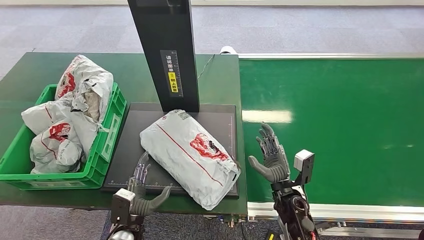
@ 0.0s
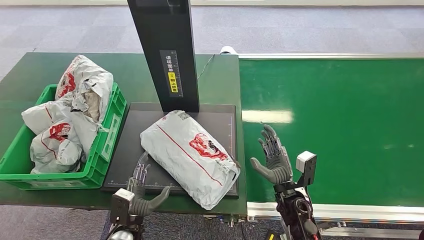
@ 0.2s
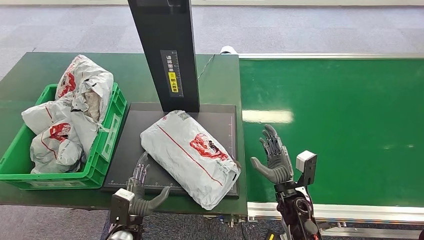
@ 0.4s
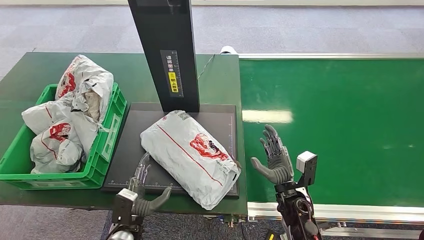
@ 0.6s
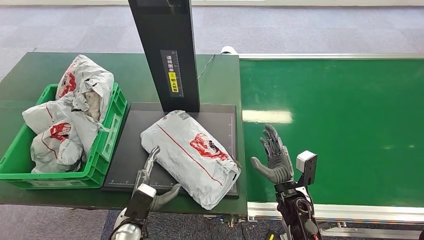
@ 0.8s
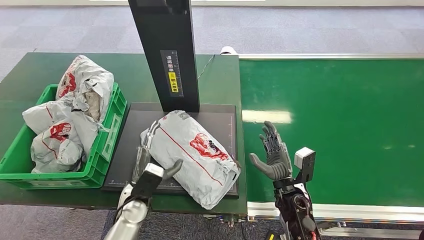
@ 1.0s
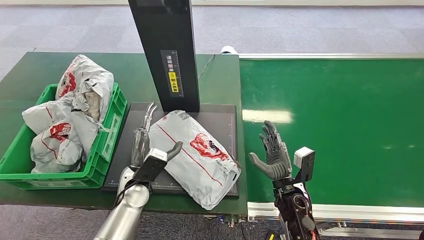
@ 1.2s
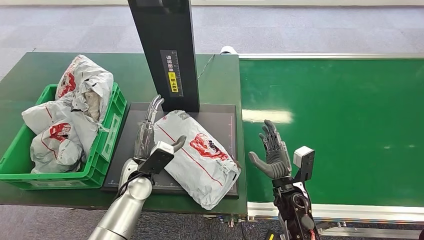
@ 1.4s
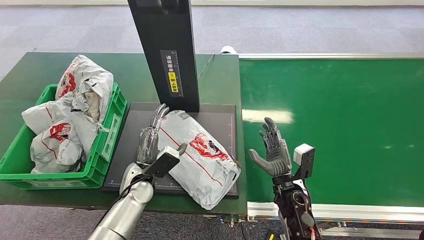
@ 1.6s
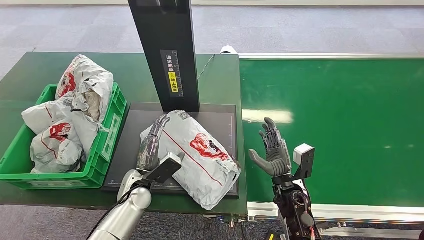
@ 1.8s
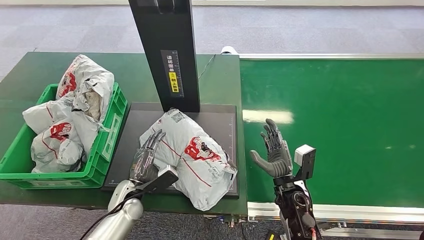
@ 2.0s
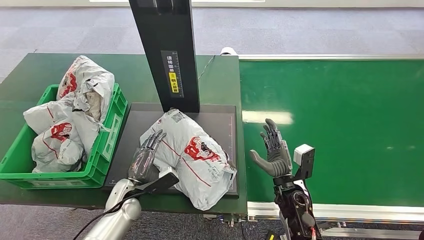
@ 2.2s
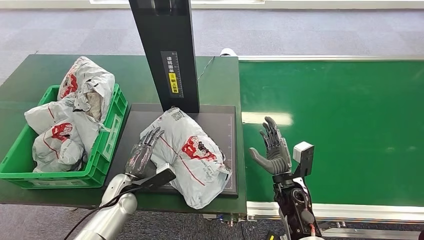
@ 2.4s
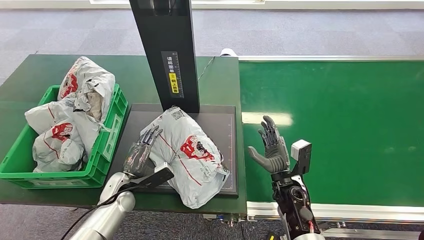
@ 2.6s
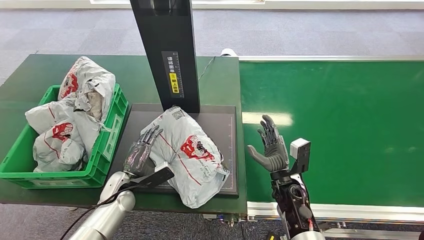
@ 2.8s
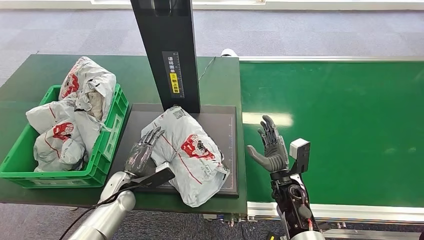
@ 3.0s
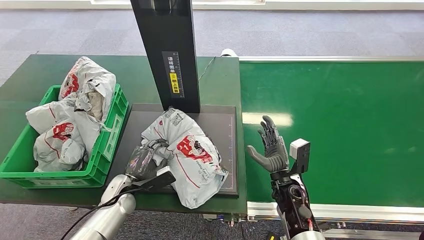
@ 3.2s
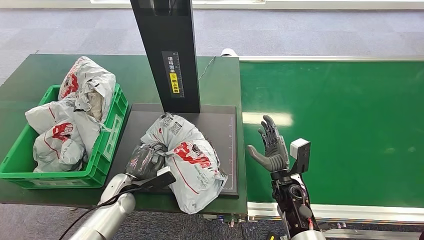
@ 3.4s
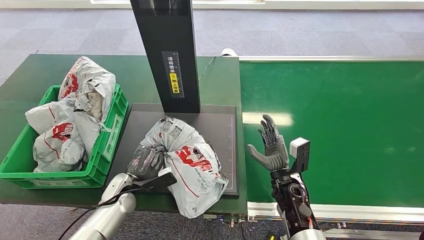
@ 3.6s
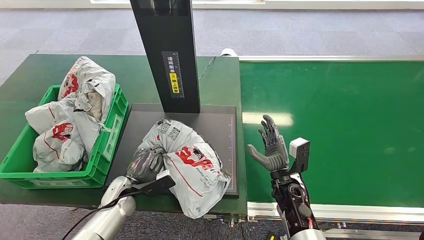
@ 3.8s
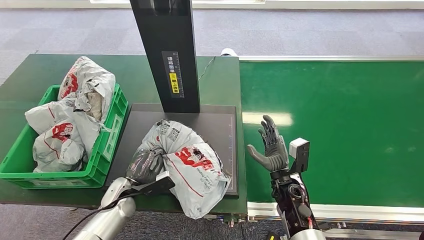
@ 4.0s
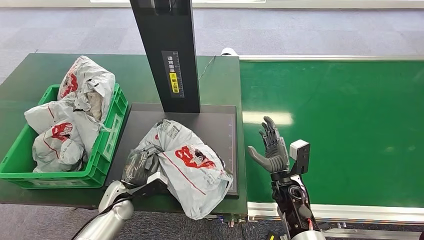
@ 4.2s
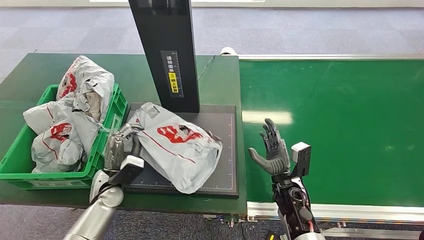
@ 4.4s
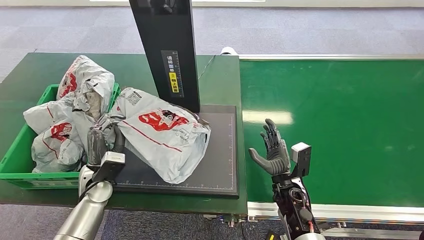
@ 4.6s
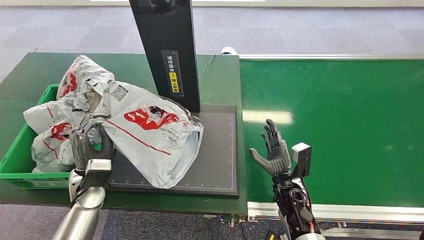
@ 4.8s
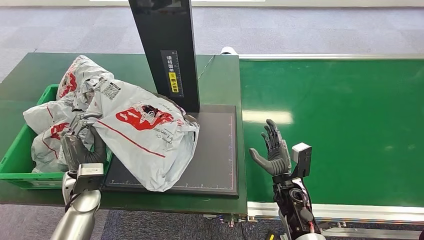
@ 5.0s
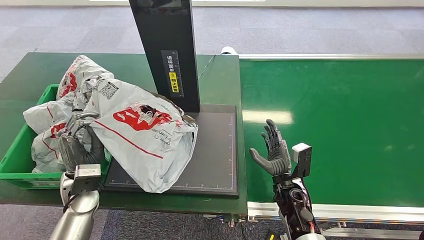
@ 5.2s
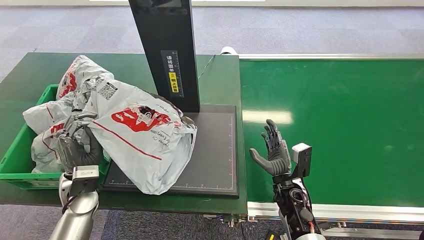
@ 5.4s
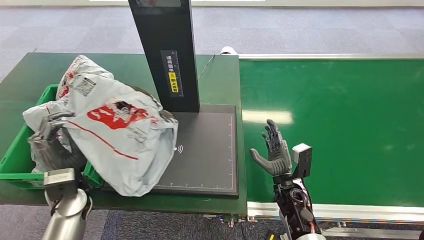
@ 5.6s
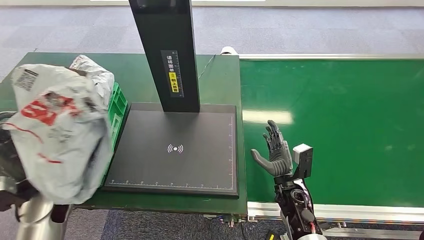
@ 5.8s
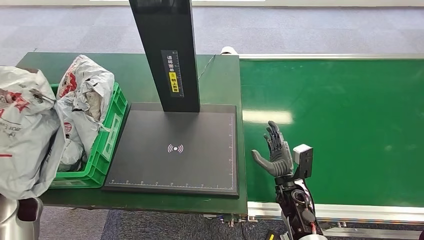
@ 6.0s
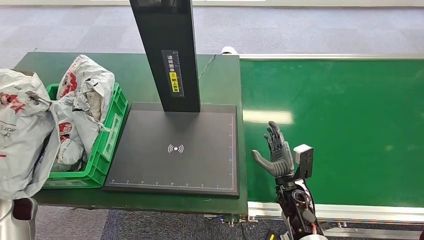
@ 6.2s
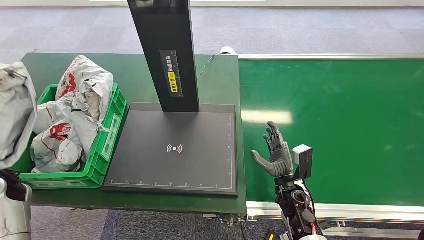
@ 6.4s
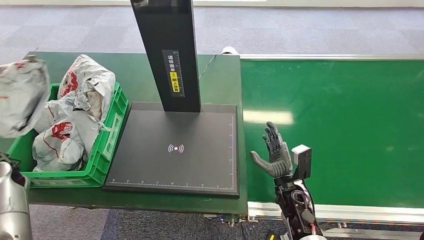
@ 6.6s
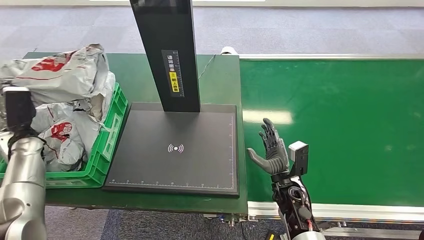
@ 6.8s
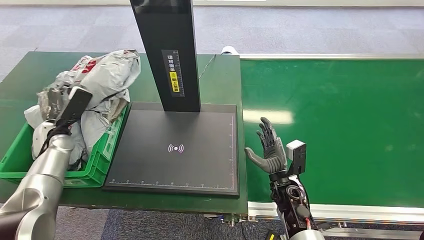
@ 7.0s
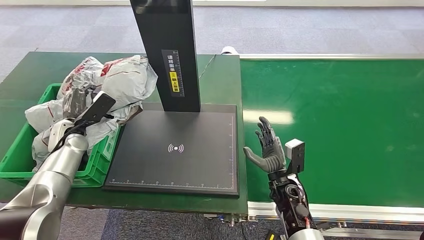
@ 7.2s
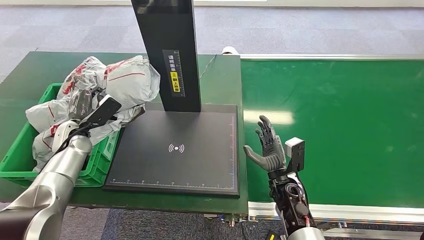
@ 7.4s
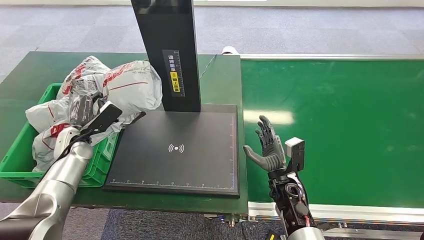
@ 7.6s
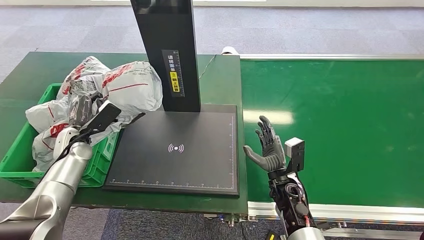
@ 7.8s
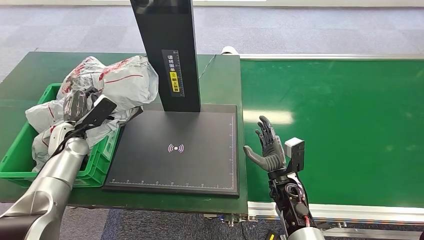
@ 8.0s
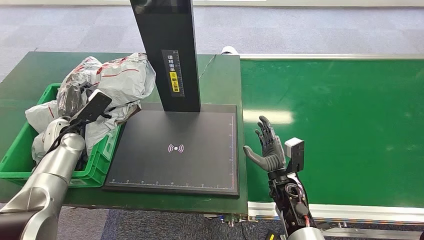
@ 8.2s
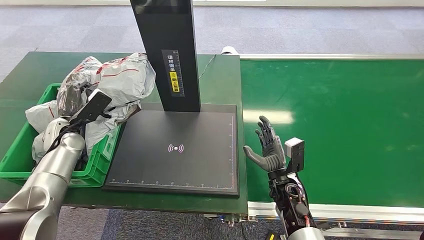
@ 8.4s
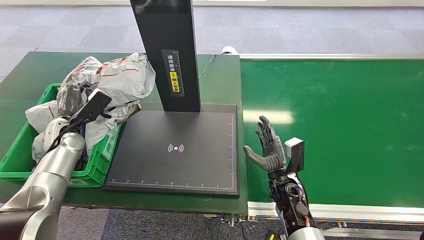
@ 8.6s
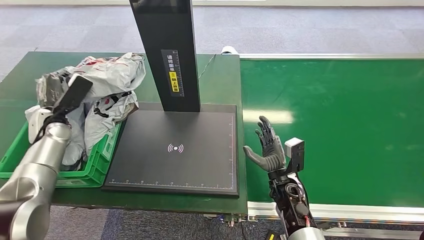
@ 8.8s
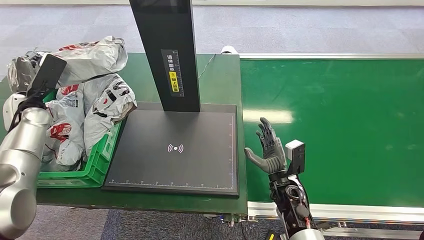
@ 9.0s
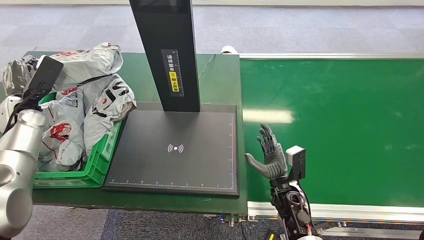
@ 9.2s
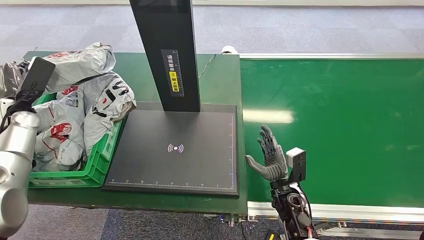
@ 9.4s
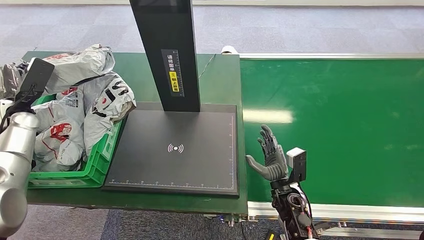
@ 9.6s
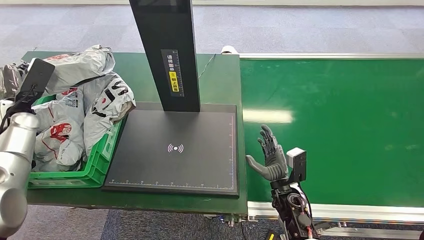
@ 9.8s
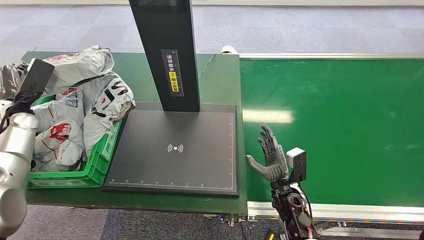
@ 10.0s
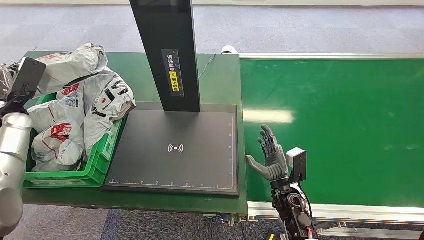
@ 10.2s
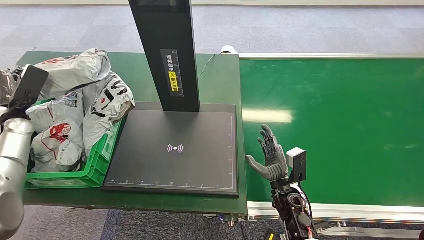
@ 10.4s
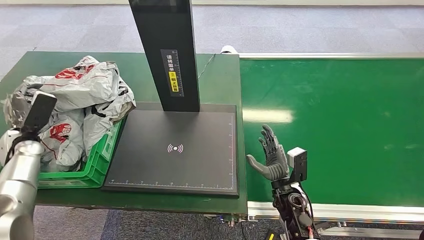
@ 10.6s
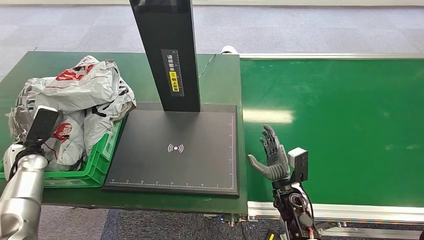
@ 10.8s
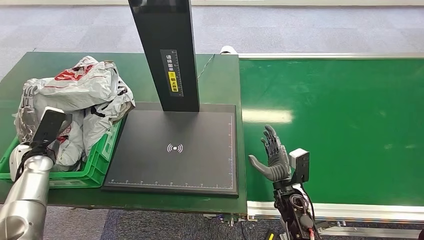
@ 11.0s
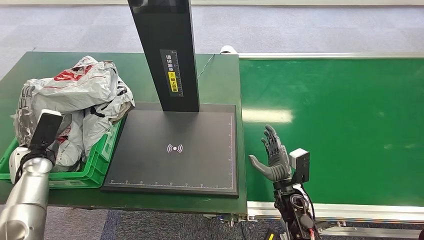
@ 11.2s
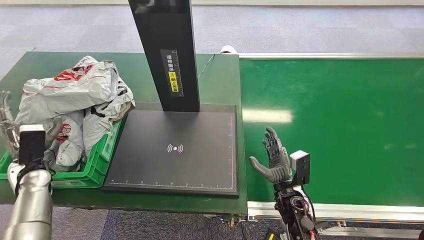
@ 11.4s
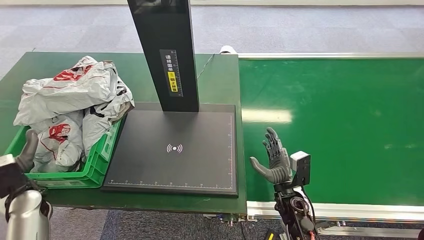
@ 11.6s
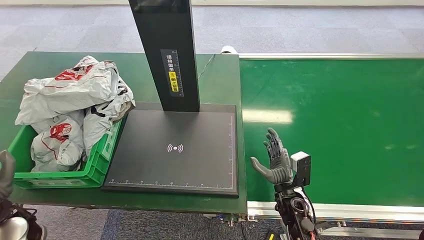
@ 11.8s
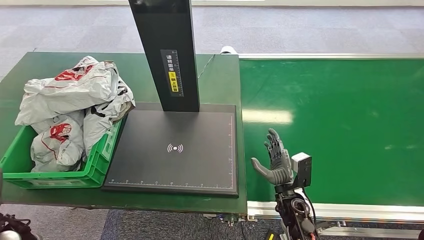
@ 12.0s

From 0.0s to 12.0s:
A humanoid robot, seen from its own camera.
Step, from 3.8s to 4.4s: Pick up the package from the inbound machine.
From 0.0s to 1.6s: The left hand travels forward and upward by some 15 cm.
From 4.4s to 6.0s: The left hand travels to the left and upward by some 20 cm.
From 7.6s to 9.0s: The left hand is displaced upward and to the left by roughly 15 cm.
From 9.0s to 10.4s: The left hand changes place by about 5 cm.
From 10.4s to 12.0s: The left hand travels backward and to the right by roughly 25 cm.

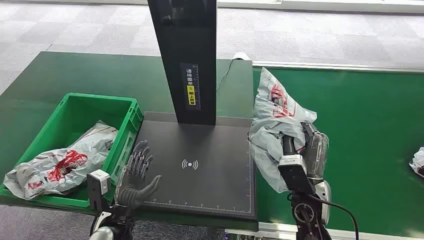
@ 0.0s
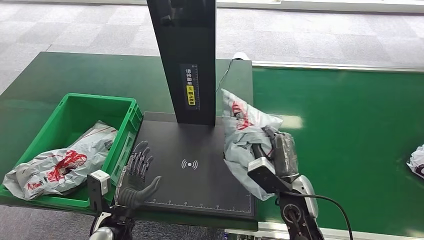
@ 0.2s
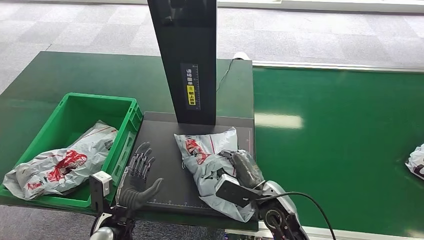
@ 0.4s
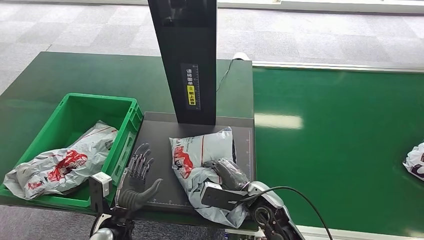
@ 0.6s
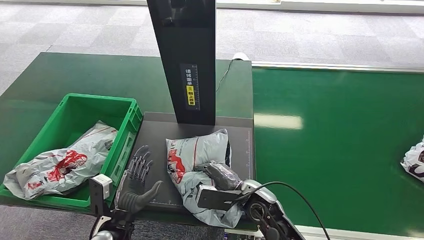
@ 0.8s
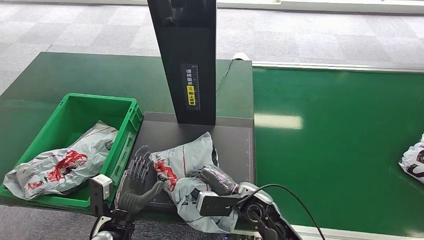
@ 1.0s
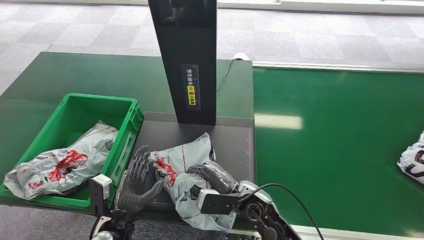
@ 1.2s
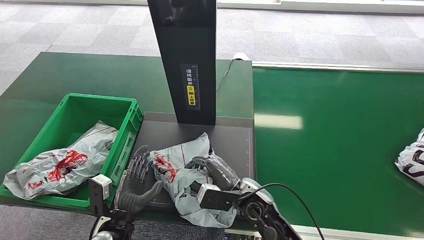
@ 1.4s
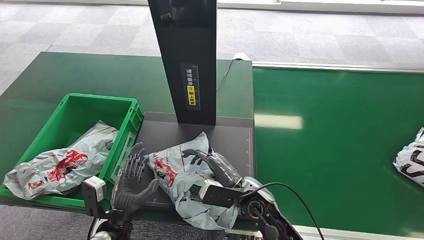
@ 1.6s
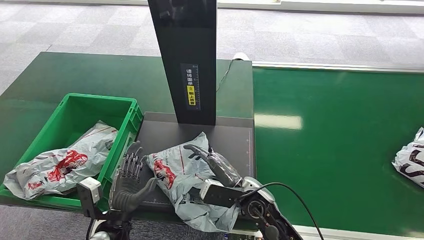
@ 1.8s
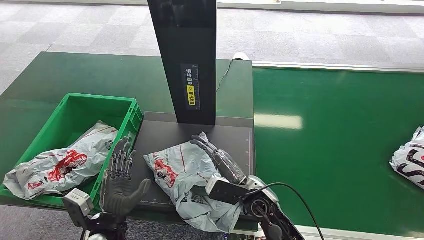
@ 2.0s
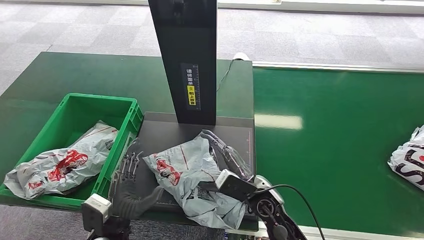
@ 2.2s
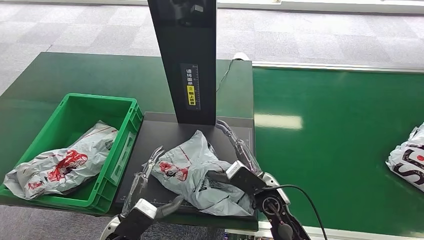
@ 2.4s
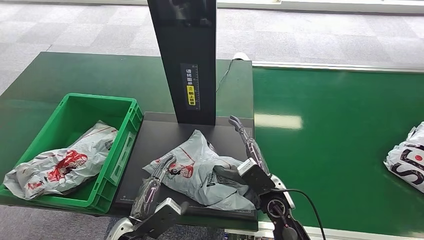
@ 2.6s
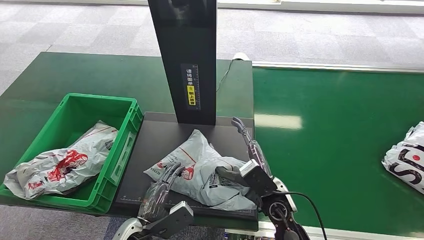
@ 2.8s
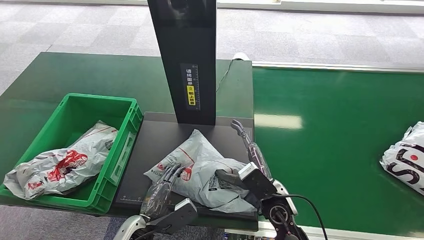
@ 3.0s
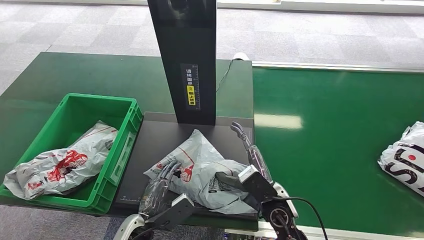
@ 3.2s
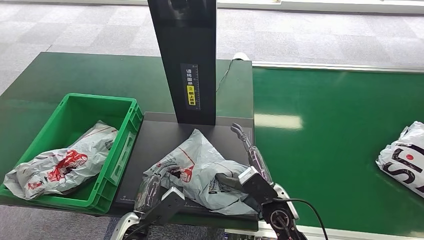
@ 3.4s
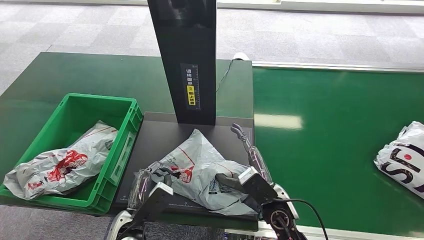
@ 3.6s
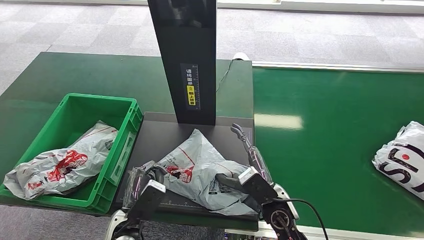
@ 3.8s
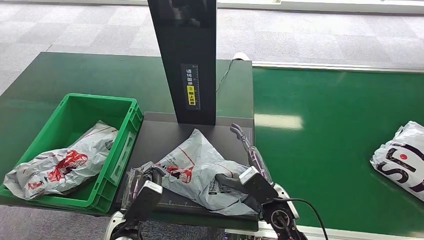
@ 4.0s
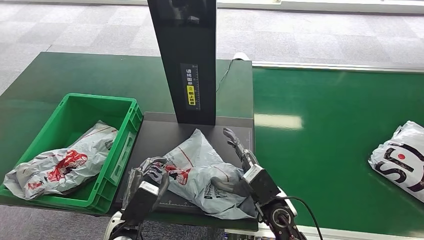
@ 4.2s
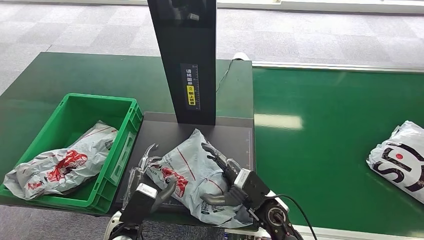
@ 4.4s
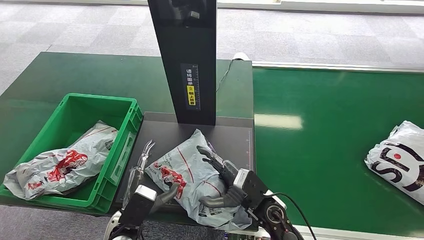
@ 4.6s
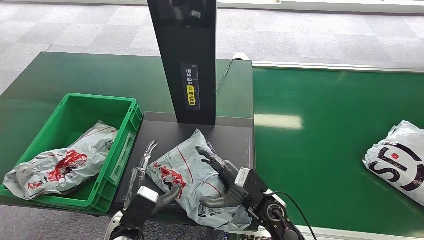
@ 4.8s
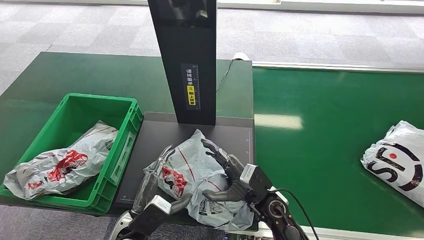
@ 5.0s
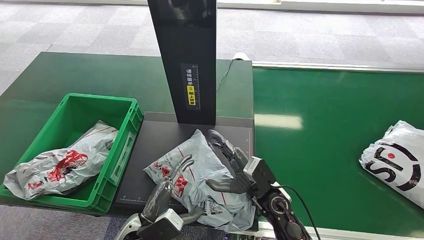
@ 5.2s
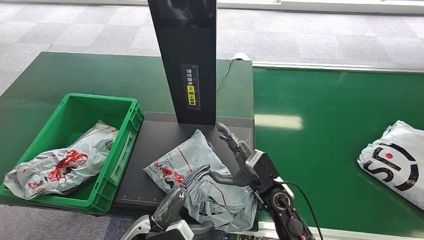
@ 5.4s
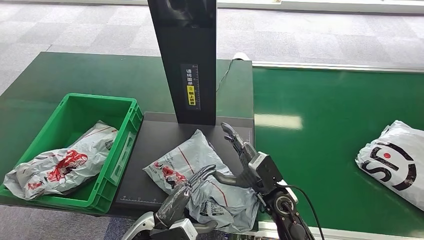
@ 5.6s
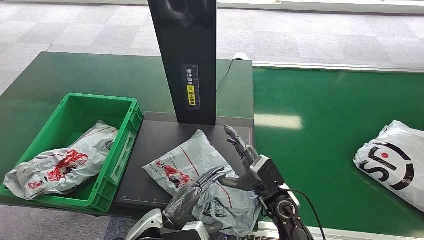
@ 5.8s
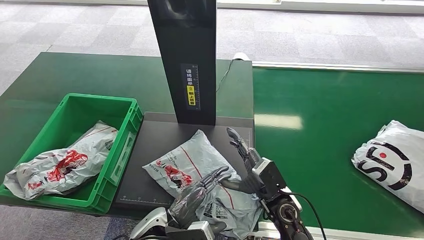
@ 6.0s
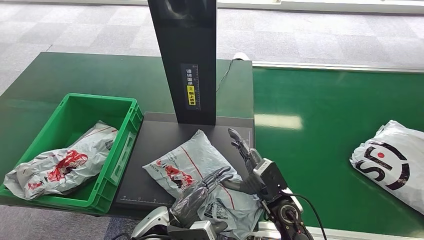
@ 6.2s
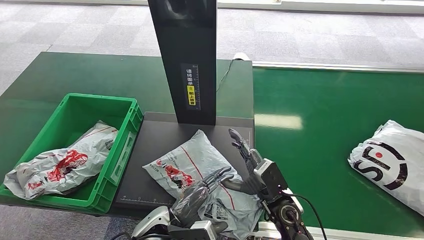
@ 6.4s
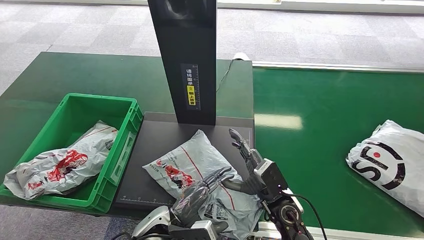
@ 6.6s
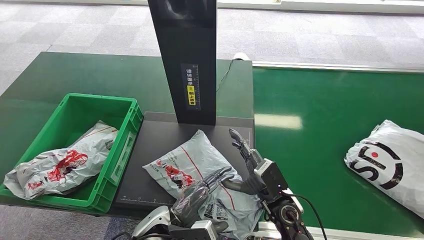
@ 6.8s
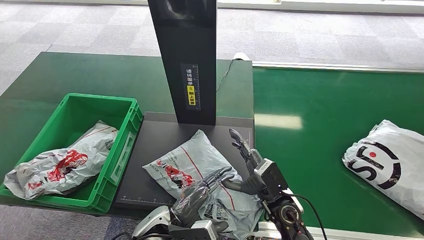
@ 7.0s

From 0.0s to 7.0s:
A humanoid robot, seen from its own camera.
From 1.4s to 2.8s: The right hand travels to the right by about 5 cm.
From 5.6s to 7.0s: The hands move only a little.
